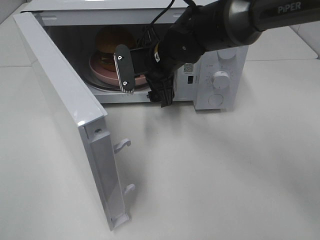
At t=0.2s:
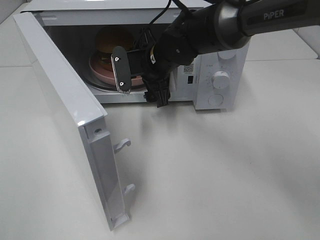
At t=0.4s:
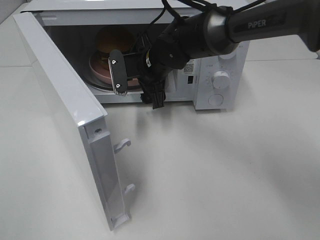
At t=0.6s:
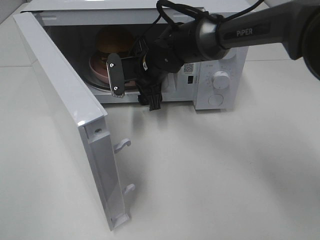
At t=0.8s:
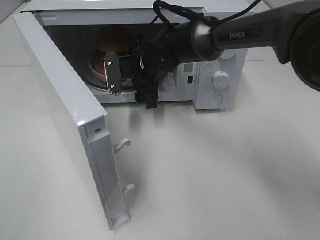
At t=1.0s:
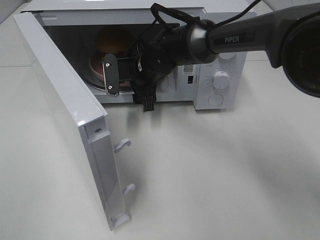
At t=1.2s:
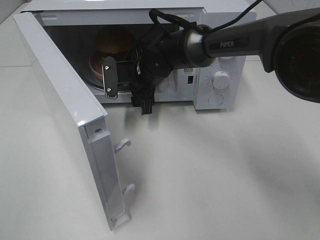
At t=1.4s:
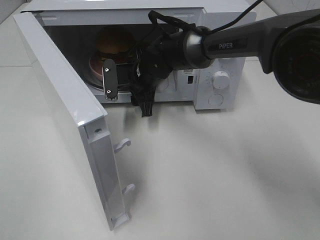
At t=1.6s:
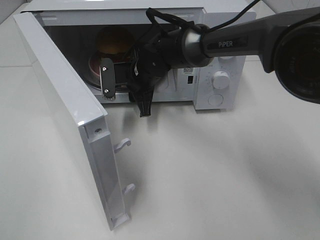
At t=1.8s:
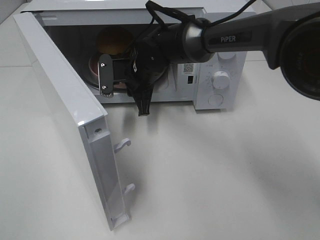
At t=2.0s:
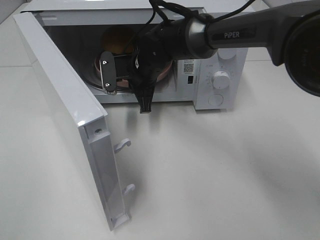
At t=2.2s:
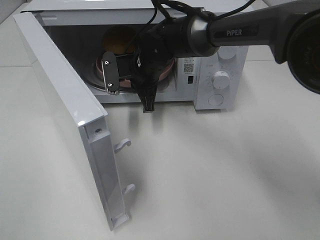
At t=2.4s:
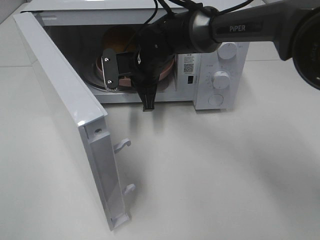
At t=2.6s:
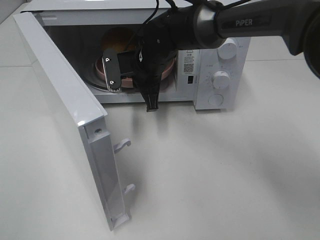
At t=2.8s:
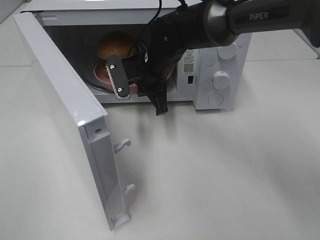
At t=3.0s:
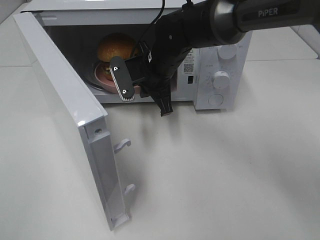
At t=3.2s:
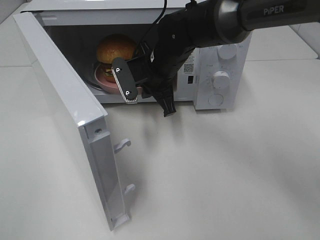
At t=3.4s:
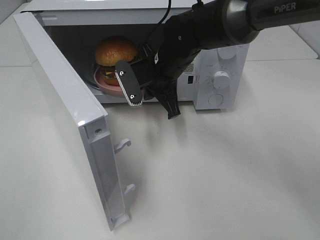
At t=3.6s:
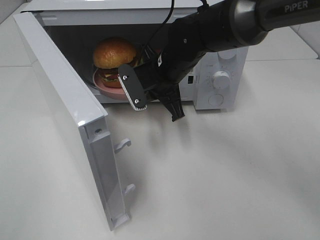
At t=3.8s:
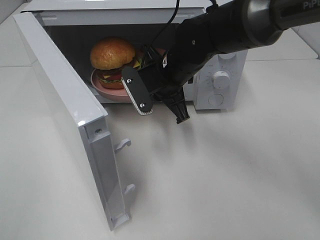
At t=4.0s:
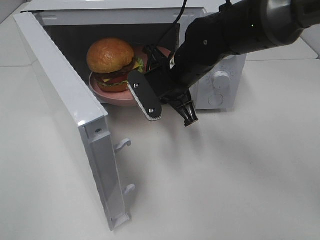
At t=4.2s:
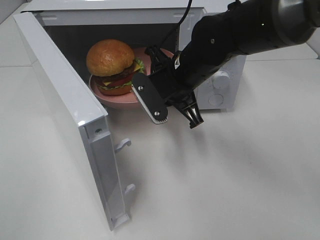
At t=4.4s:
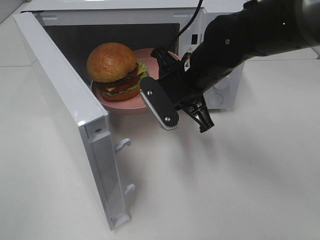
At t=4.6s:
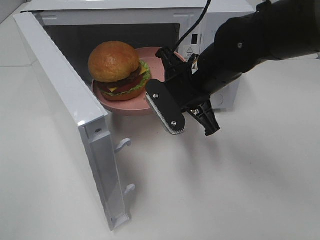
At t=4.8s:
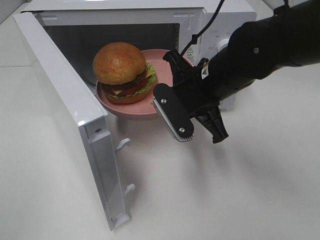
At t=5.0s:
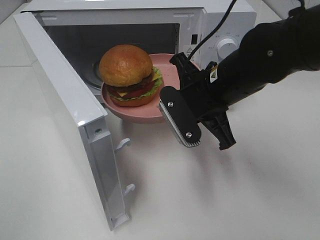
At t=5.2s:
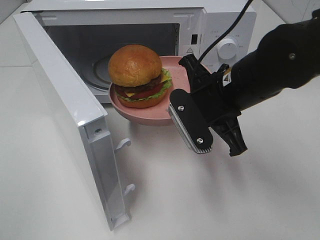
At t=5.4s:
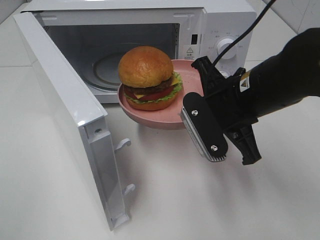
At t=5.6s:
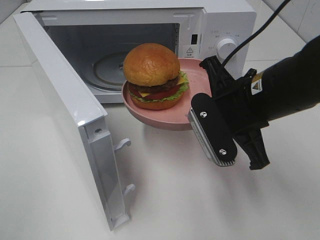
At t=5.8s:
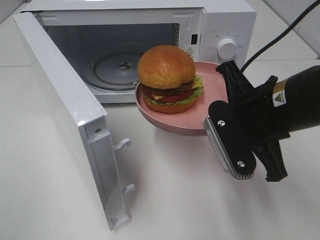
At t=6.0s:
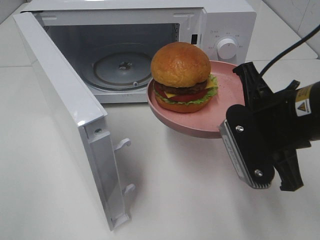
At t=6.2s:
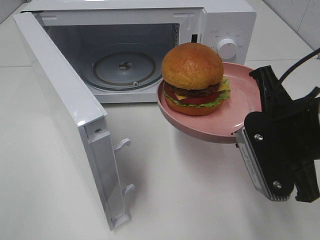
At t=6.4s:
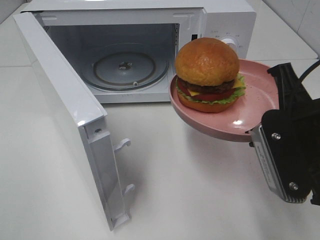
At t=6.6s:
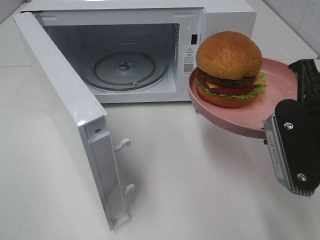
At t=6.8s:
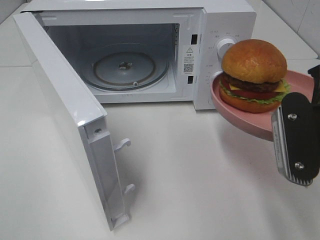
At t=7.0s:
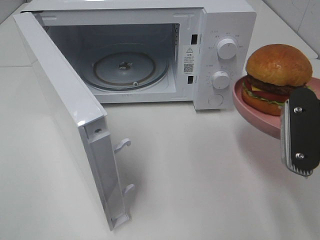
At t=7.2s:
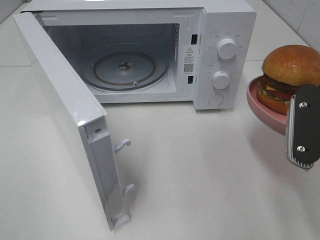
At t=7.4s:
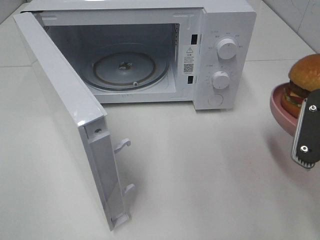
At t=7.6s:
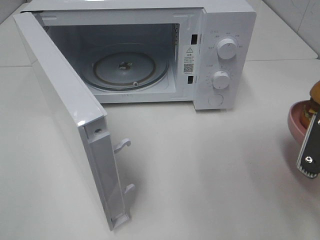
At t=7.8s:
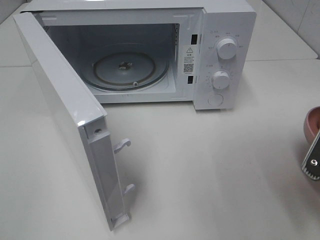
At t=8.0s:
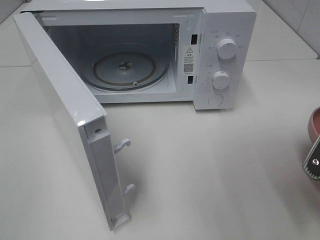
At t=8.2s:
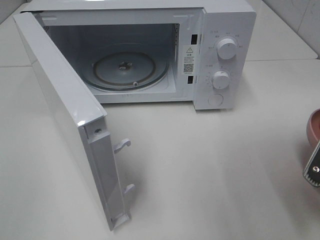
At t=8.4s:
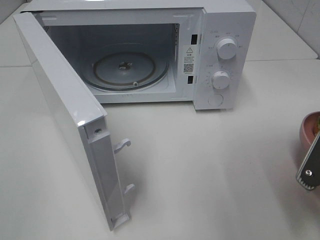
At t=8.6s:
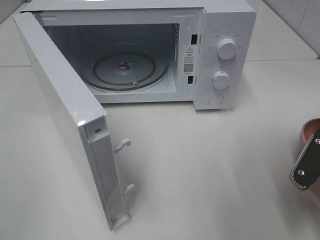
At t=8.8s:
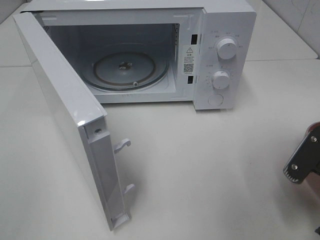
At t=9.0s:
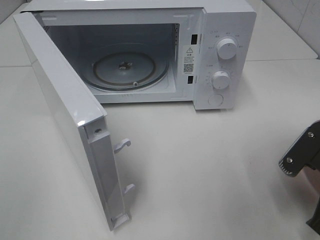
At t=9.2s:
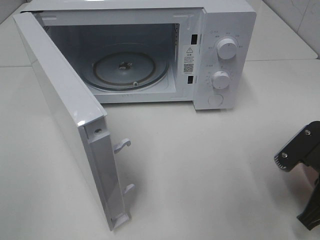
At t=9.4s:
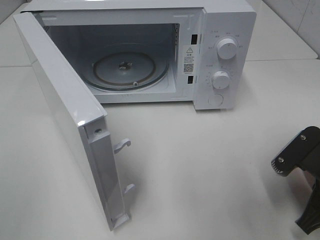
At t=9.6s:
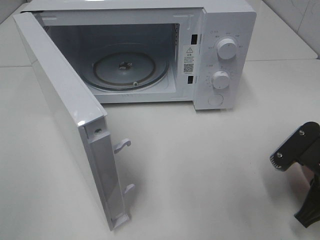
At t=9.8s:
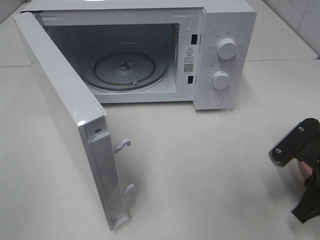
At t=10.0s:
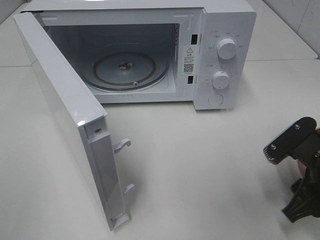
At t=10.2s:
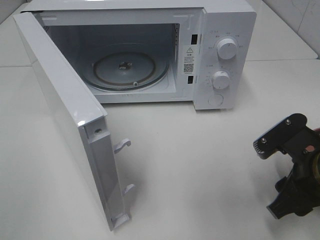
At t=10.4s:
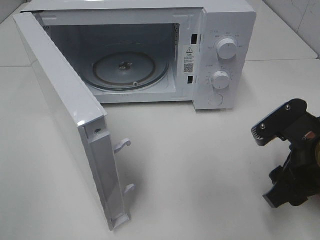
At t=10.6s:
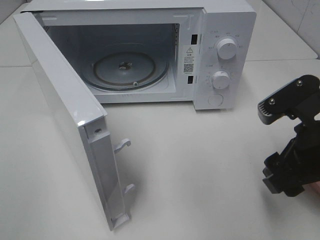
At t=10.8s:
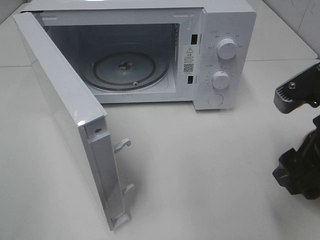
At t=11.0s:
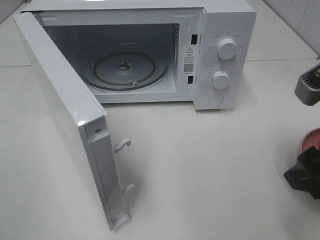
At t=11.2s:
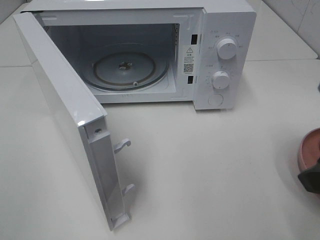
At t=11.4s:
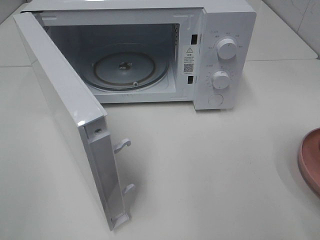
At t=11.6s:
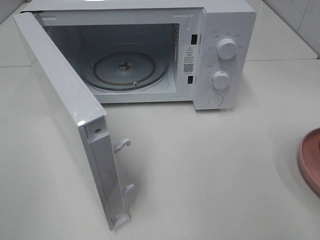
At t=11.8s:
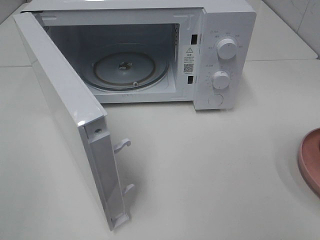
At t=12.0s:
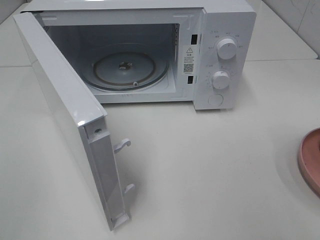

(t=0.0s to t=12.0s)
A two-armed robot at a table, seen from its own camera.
Task of the whole recording: Heat the burger.
Step, t=0.0s - t=2.4s: Right hand: grab the plate with the hamburger.
Step, t=2.6s - t=9.8s: Right hand: place the plate on the table.
t=0.0s - t=1.6s: The right gripper is displaced downward by approximately 5 cm, and closes its fingers.
t=1.6s - t=3.0s: The right gripper changes place by about 5 cm, and closes up.
t=3.0s - t=4.4s: The right gripper shifts roughly 10 cm backward and to the right.
t=4.4s - t=6.0s: The right gripper travels backward and to the right by some 15 cm.
t=6.0s - t=7.6s: The right gripper is displaced to the right by roughly 10 cm.
t=7.6s - t=9.0s: The right gripper shifts about 5 cm downward.
t=9.0s - t=10.4s: The right gripper moves roughly 5 cm, and opens.
t=10.4s - t=12.0s: The right gripper travels upward, backward and to the right by about 20 cm.

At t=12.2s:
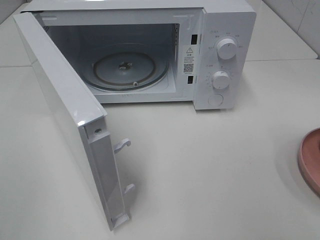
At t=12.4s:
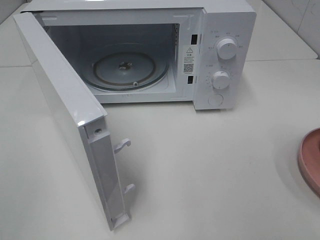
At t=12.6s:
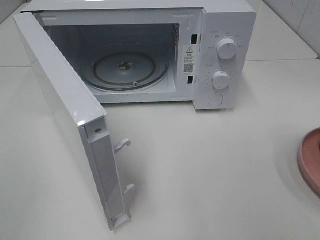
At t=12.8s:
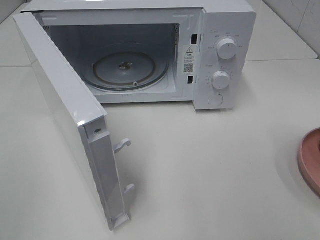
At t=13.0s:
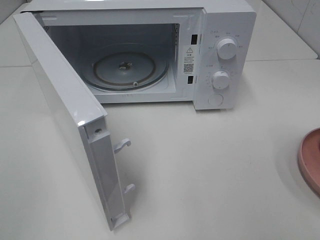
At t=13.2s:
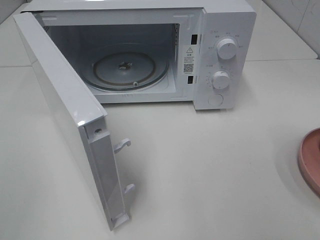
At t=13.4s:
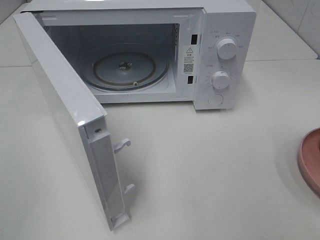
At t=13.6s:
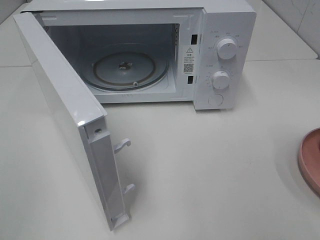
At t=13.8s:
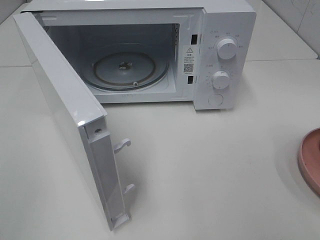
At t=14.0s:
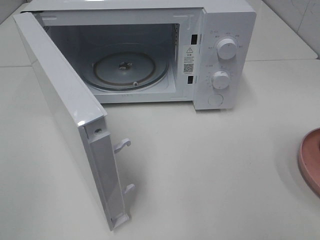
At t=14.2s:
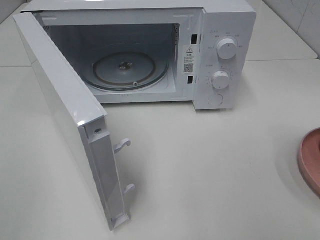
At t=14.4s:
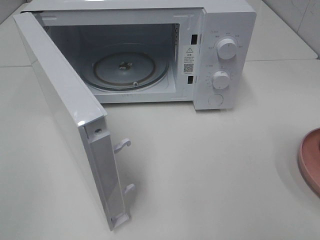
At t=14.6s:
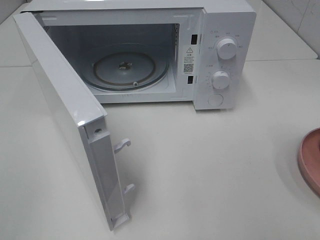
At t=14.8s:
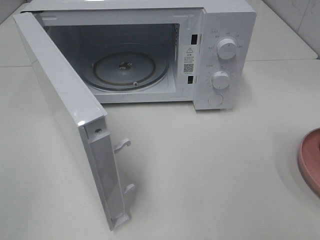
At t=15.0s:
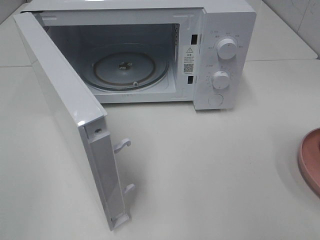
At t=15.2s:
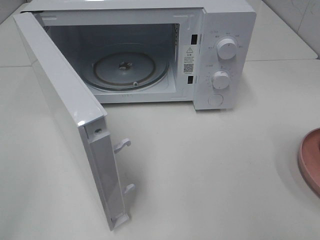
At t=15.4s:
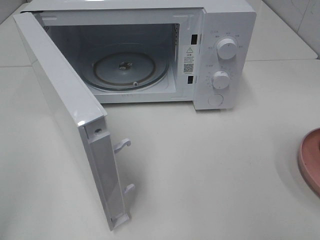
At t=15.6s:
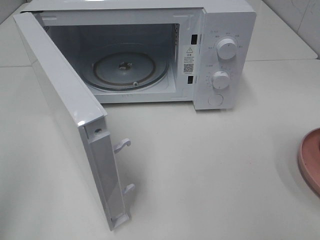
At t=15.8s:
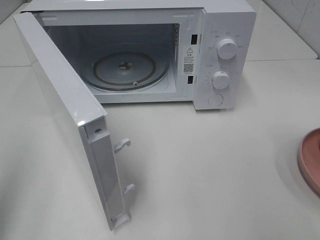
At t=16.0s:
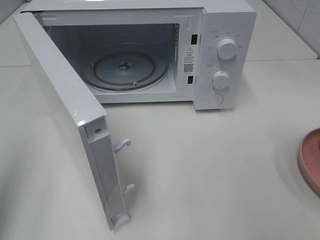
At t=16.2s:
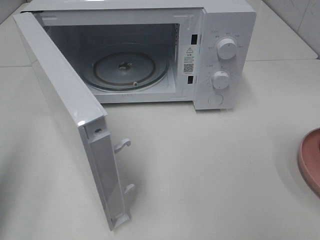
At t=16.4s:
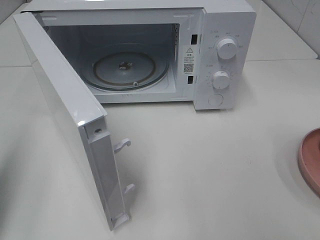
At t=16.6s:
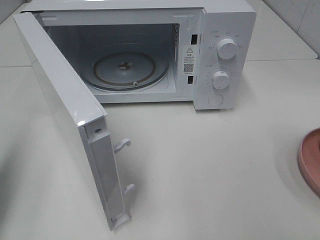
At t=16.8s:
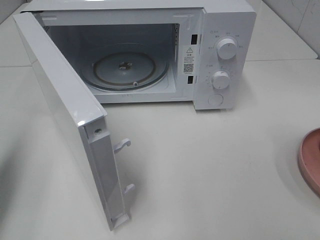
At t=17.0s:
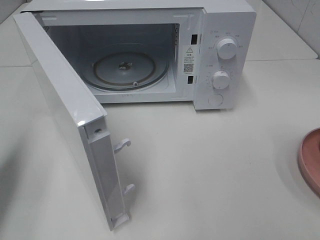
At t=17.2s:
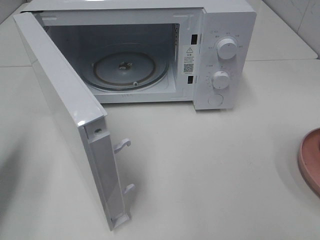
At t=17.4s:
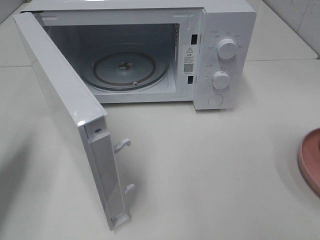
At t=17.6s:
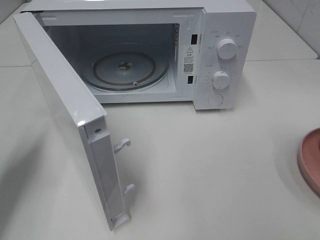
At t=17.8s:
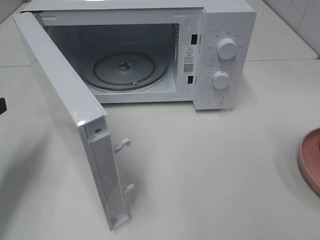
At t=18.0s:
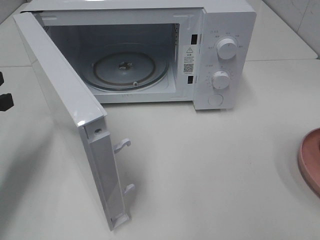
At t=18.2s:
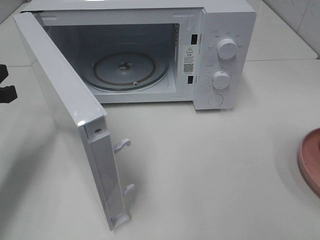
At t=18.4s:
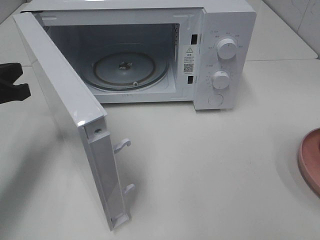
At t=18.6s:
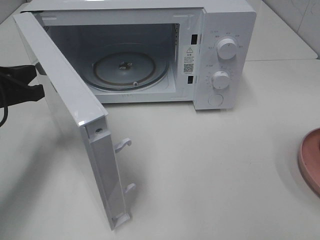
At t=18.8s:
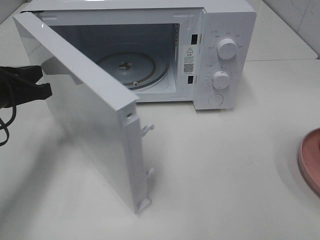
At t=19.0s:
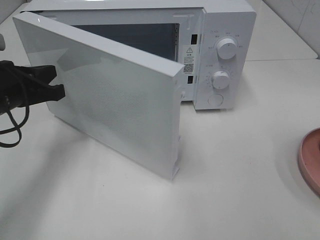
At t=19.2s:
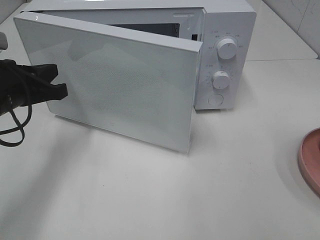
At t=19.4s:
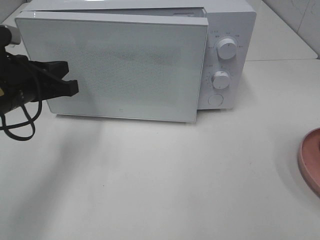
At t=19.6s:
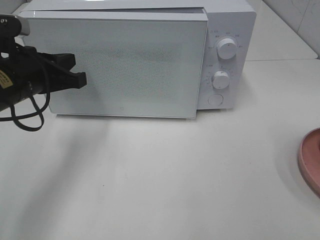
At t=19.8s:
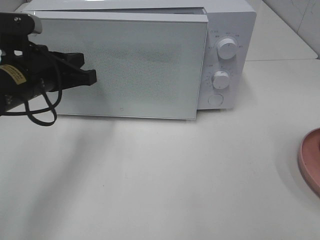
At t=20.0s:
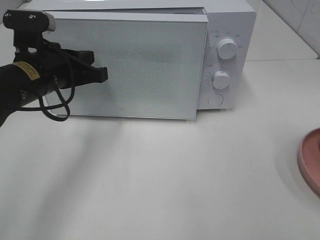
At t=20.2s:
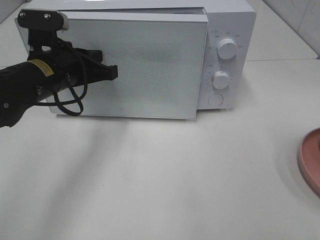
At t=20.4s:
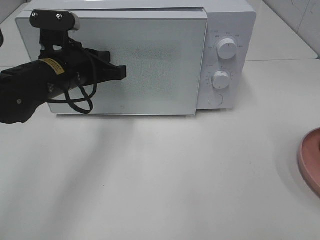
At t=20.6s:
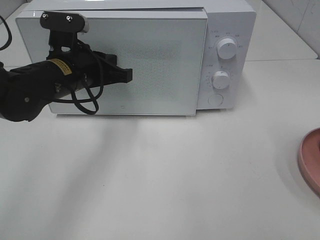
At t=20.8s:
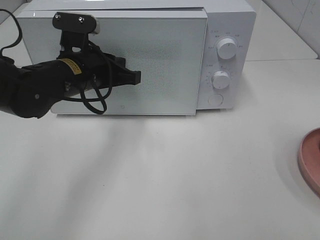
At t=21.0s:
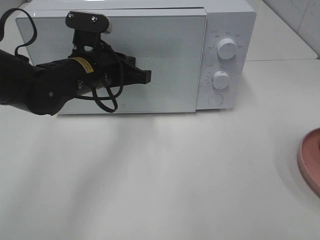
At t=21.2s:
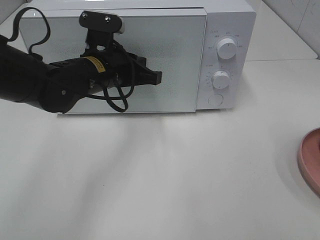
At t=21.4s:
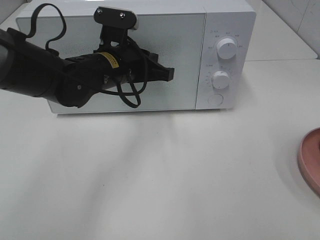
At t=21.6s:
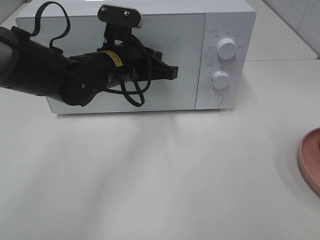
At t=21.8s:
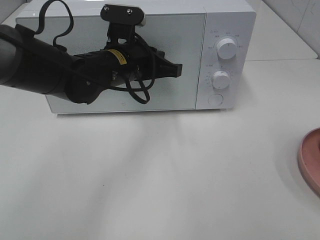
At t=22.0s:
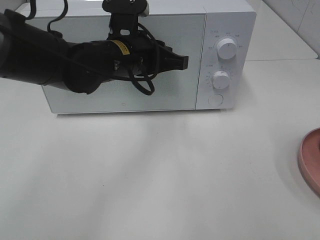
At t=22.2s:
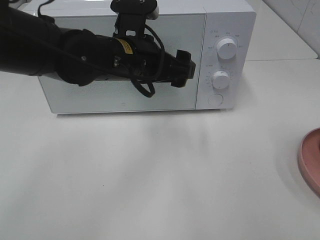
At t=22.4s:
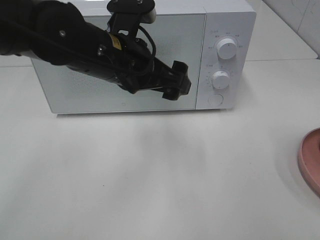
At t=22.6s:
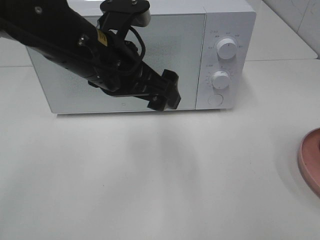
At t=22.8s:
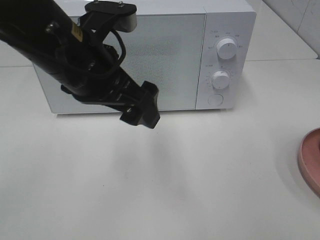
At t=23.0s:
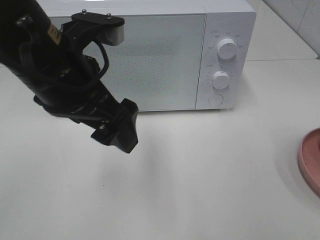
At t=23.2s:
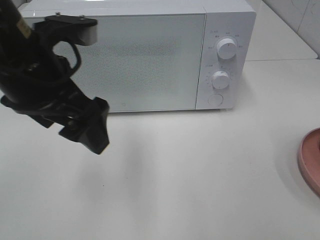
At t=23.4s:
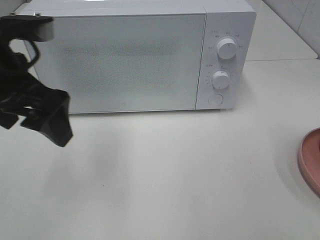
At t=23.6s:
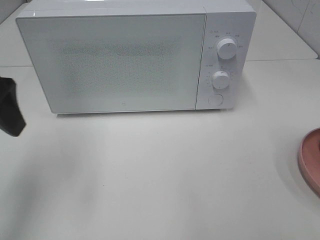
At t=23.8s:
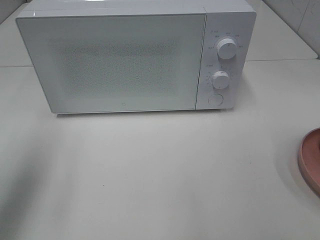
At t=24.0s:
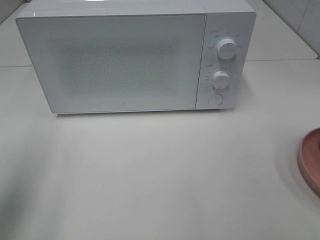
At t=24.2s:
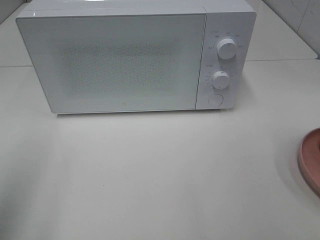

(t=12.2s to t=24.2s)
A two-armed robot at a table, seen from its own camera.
Task of the whole recording: Heat the burger.
Step, t=12.2s - t=21.4s: Left hand: close the microwave door.
t=15.2s - t=16.6s: The left gripper is displaced forward by some 15 cm, and closes.
t=16.6s - t=18.2s: The left gripper goes some 10 cm forward and downward.
t=18.2s - t=19.8s: The left gripper travels to the right by approximately 10 cm.
t=19.8s - t=21.2s: The left gripper heads to the right, covering some 10 cm.
t=21.2s - t=22.6s: The left gripper moves backward and upward, roughly 10 cm, and opens up.
t=22.6s - t=24.2s: The left gripper goes approximately 30 cm to the left and backward.
